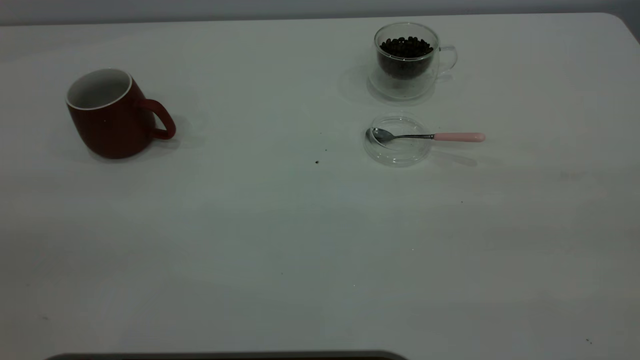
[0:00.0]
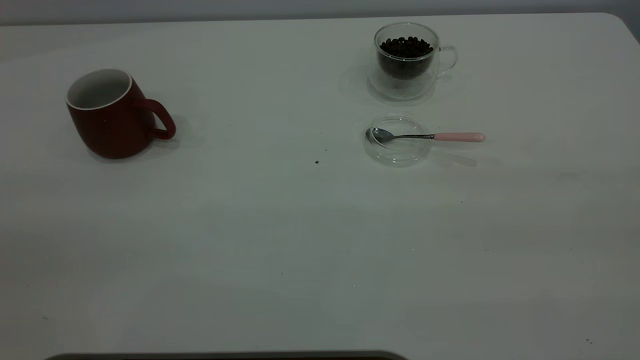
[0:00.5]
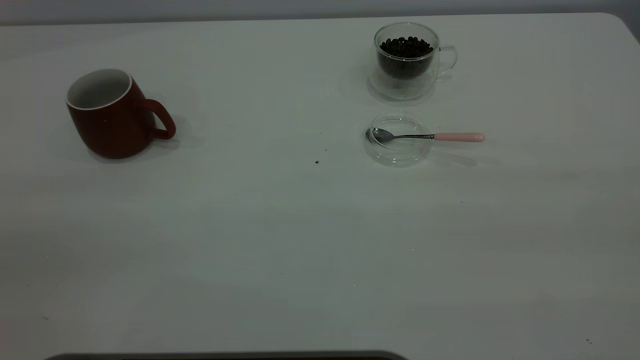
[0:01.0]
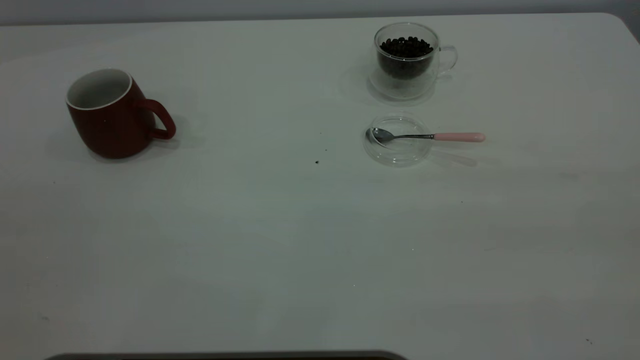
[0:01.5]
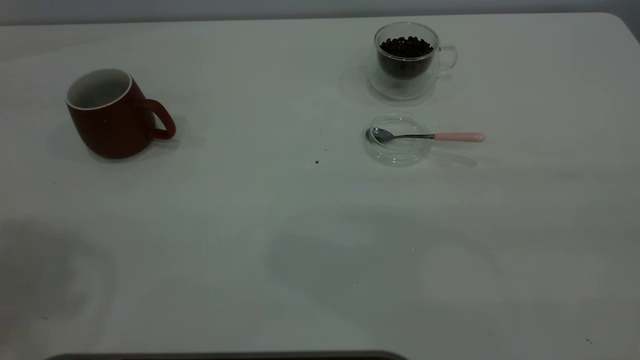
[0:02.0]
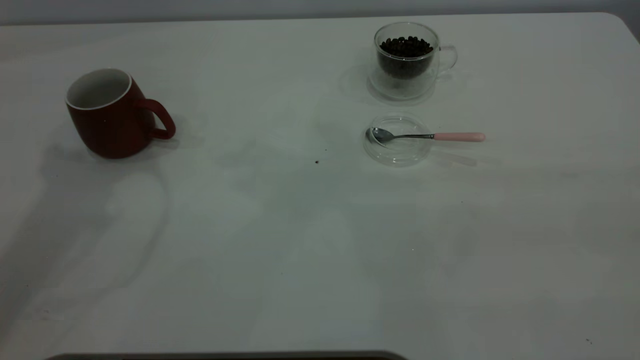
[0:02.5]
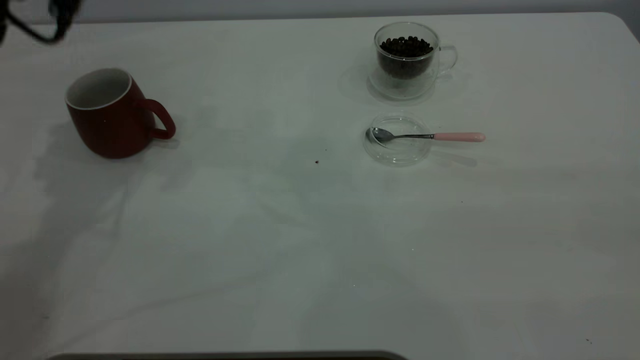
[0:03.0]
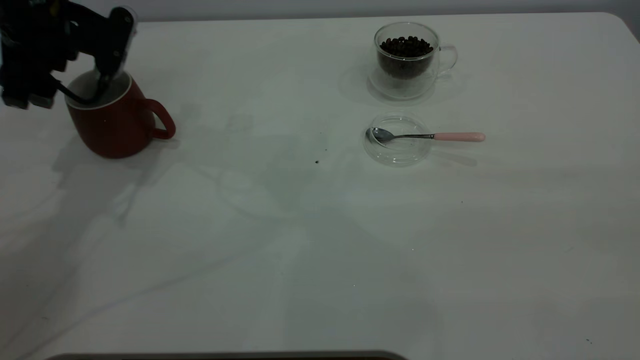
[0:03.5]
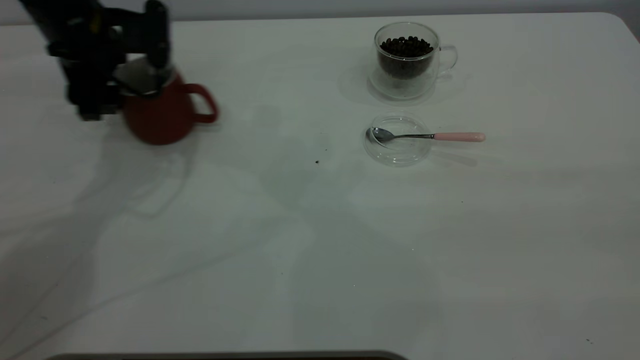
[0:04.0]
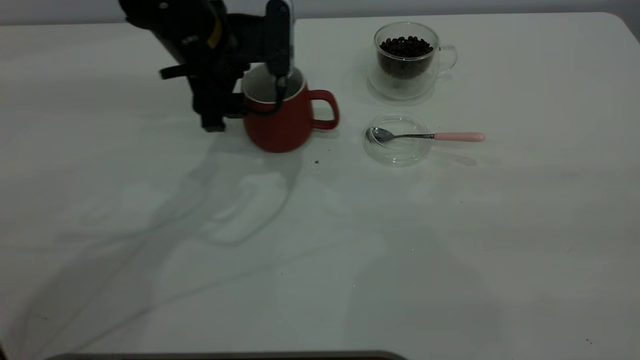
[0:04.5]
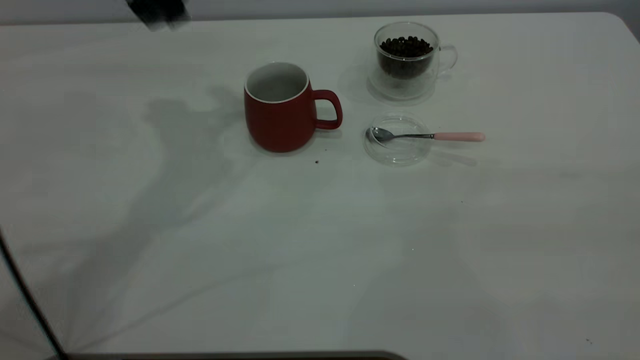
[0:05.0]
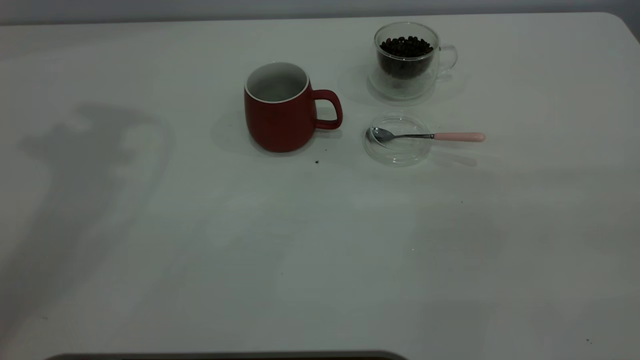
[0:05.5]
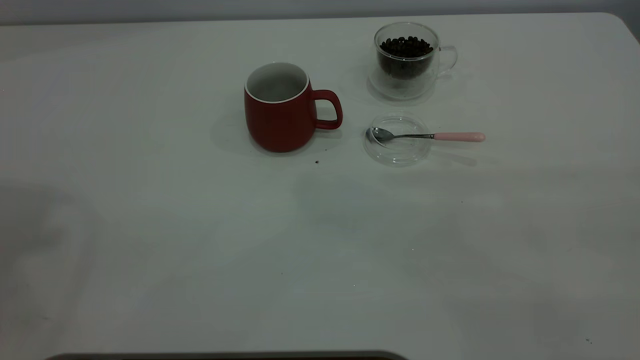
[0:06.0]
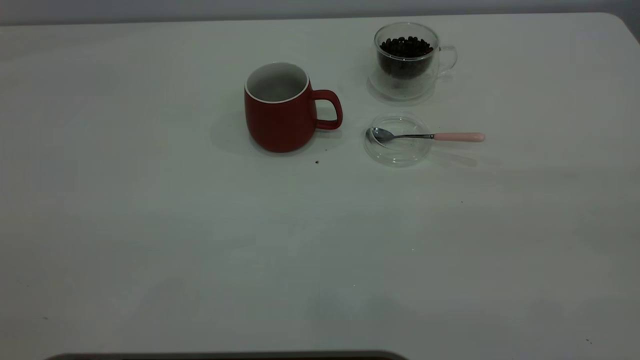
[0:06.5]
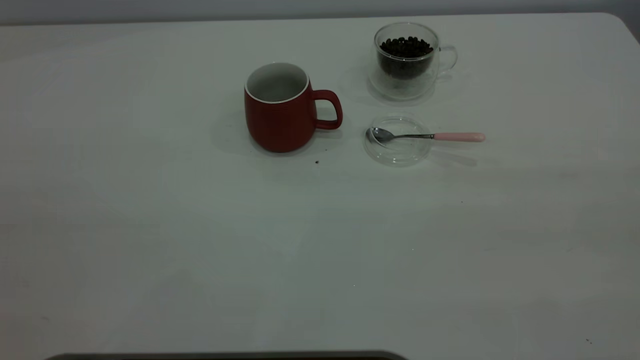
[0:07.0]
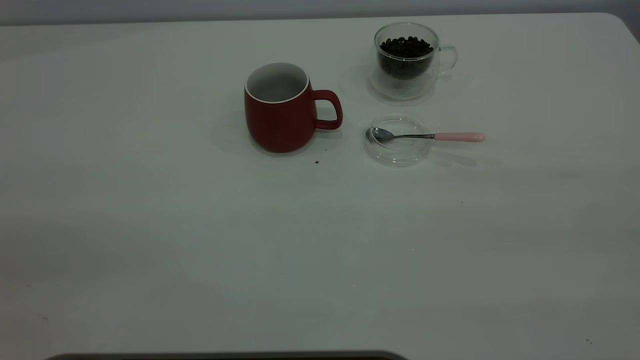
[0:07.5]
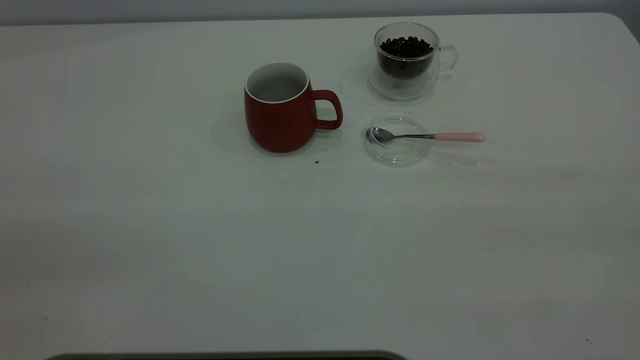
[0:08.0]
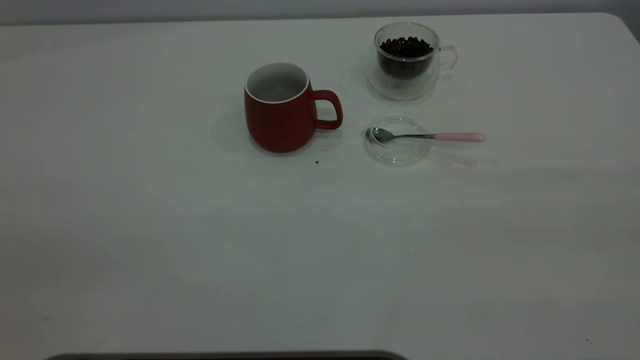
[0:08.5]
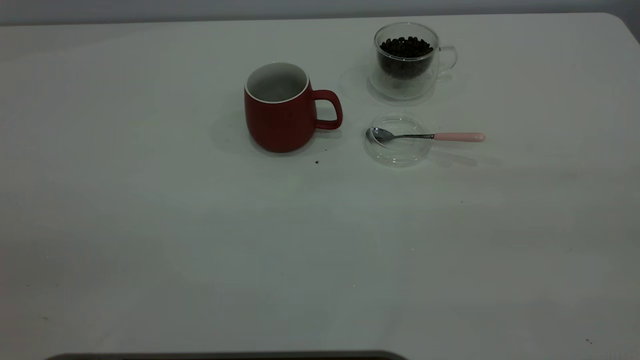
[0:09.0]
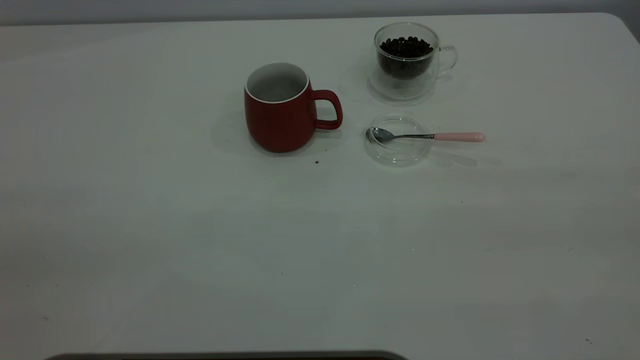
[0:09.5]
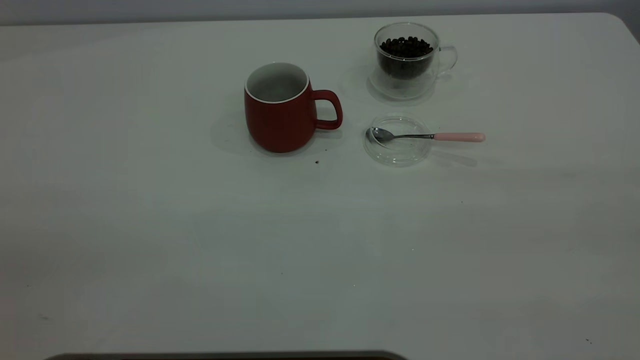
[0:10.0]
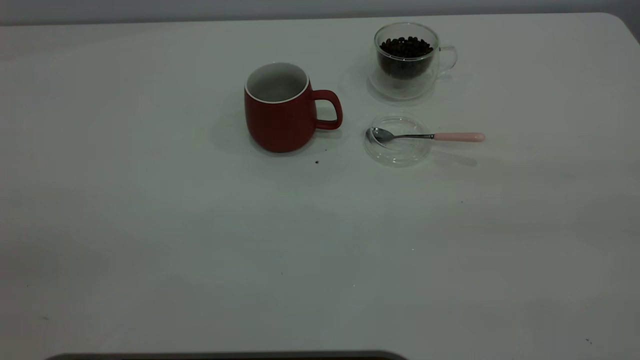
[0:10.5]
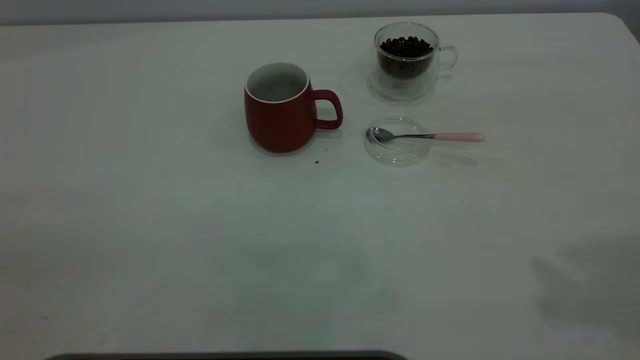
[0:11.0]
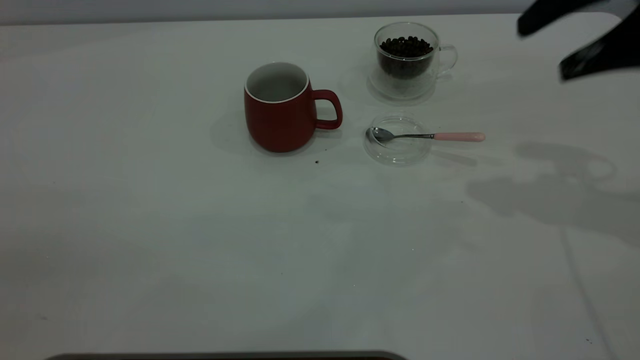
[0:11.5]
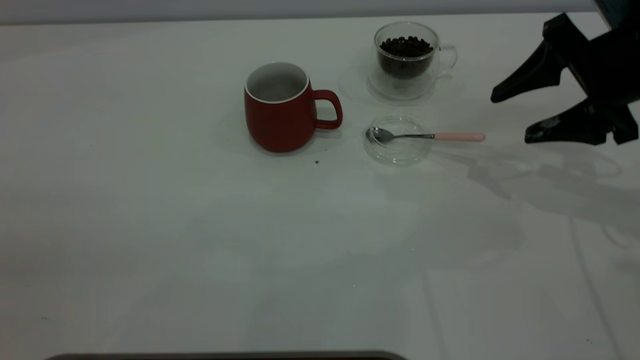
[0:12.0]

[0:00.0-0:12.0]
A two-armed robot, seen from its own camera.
Task of the whole recording: the left gripper place the red cup in the center of the table, the right gripper take the pink spoon from the cup lid and scoop out the coffee beans from the coffee cup and put them into the red cup, the right gripper put the spoon back into the cup lid.
Step, 0:00.0 to 0:04.5: Move the cup to the center of view.
0:02.0 to 0:04.0: The left gripper shifts some 40 cm downward and forward.
0:04.0 to 0:06.0: The left gripper goes roughly 50 cm upward and backward.
0:10.0 to 0:12.0: The right gripper goes some 40 cm forward and downward.

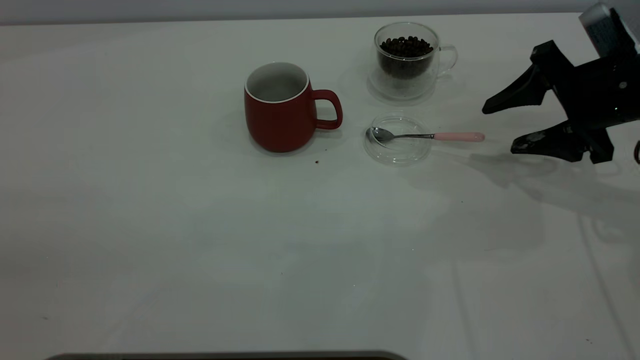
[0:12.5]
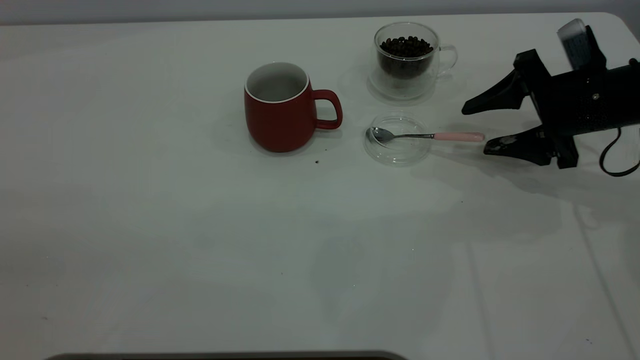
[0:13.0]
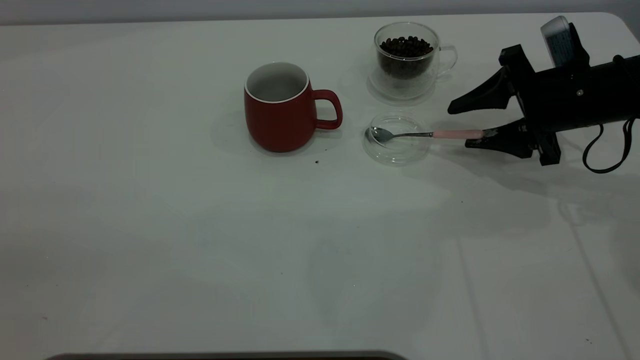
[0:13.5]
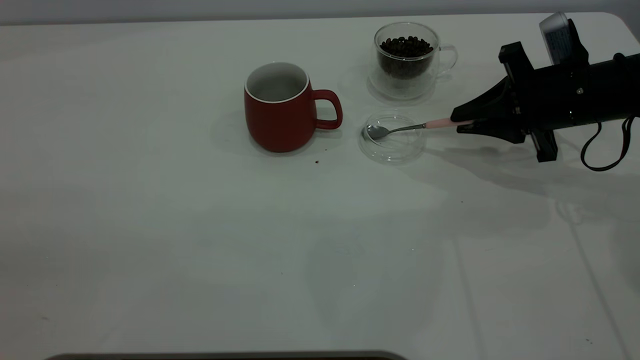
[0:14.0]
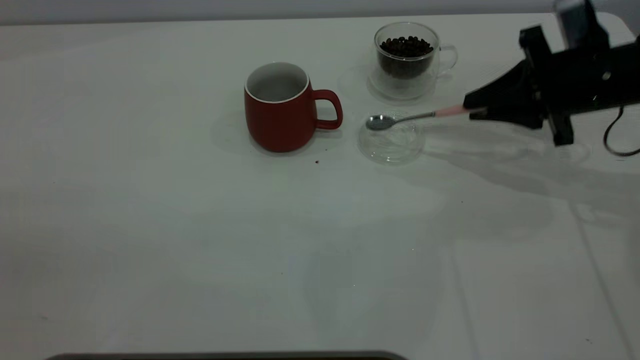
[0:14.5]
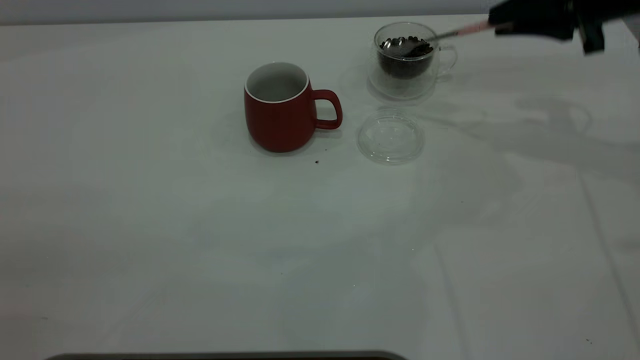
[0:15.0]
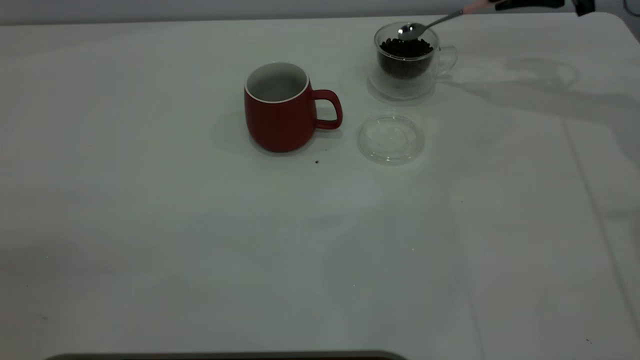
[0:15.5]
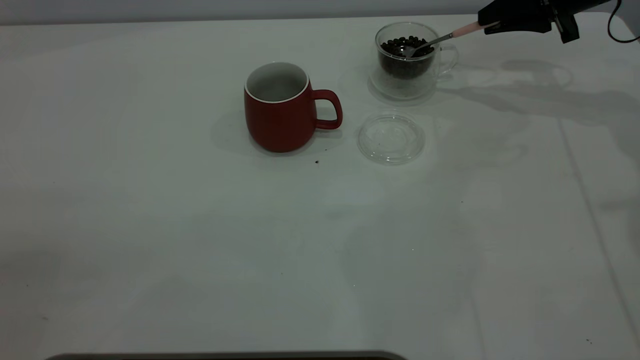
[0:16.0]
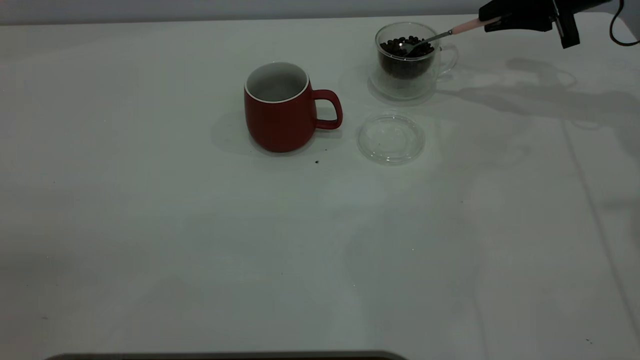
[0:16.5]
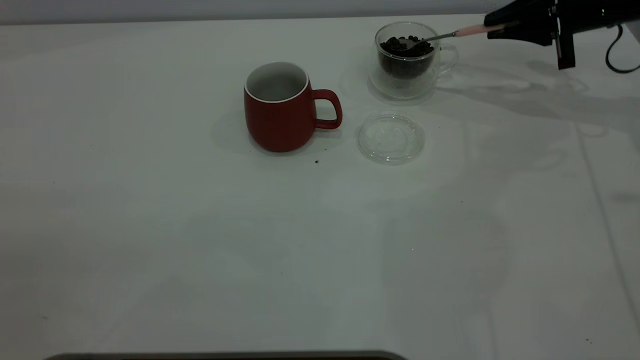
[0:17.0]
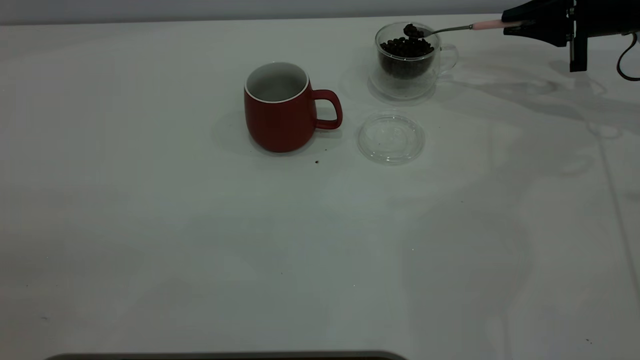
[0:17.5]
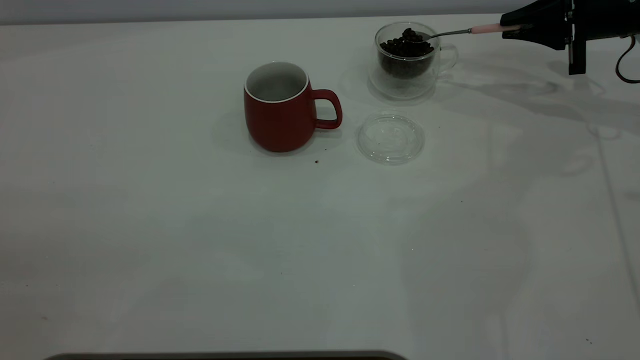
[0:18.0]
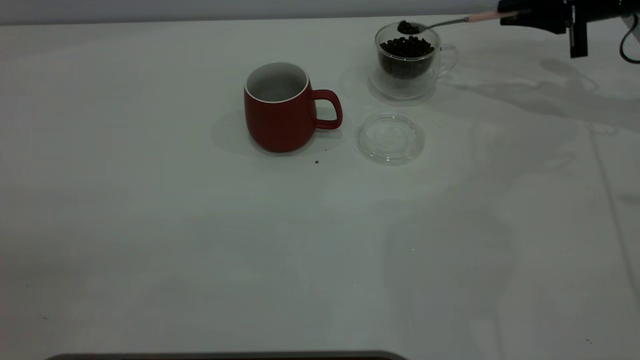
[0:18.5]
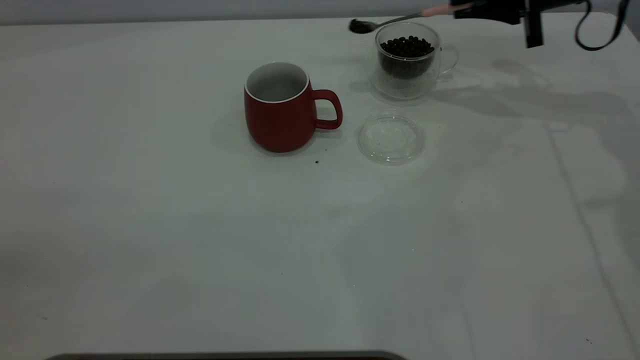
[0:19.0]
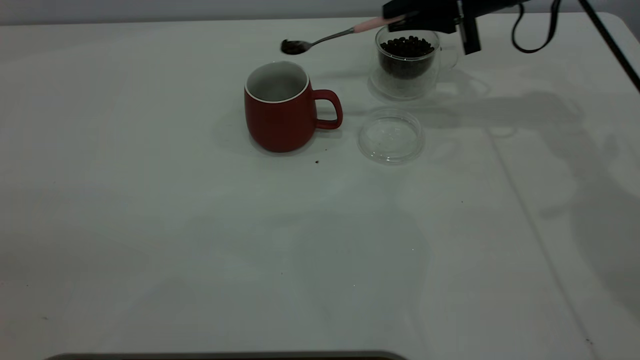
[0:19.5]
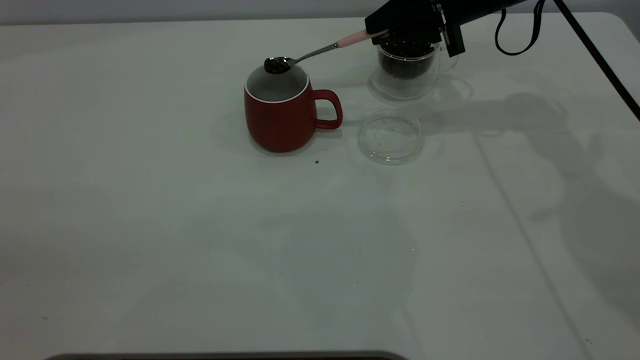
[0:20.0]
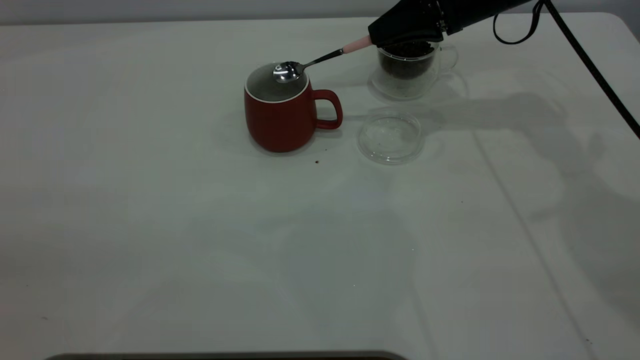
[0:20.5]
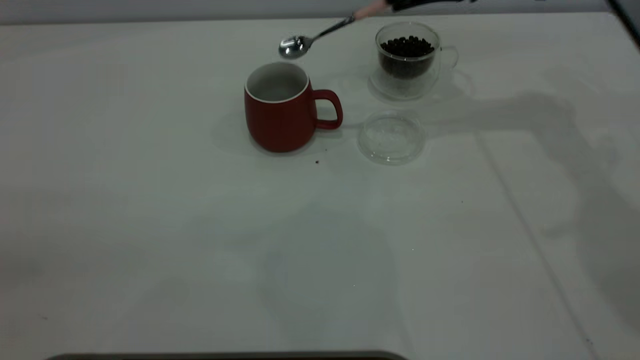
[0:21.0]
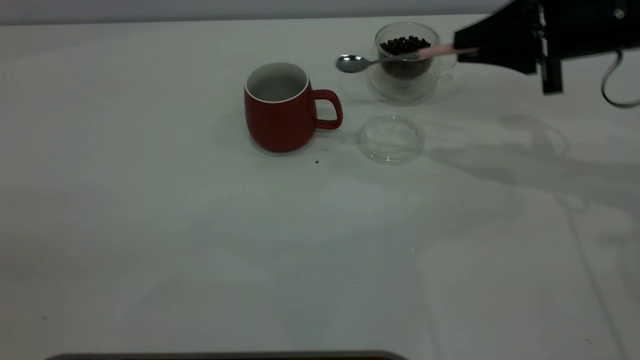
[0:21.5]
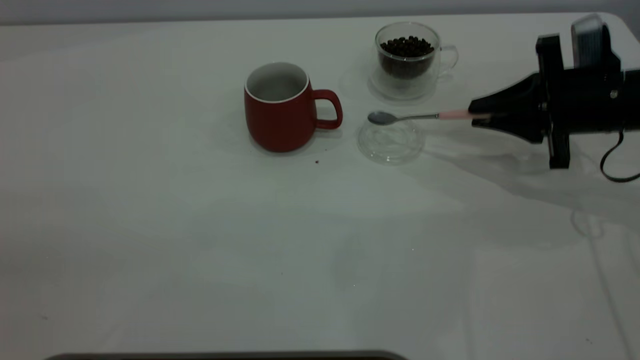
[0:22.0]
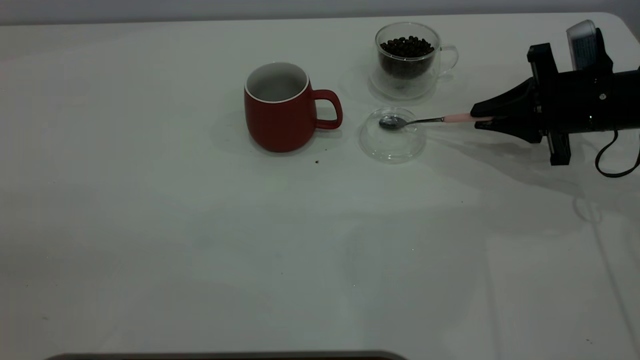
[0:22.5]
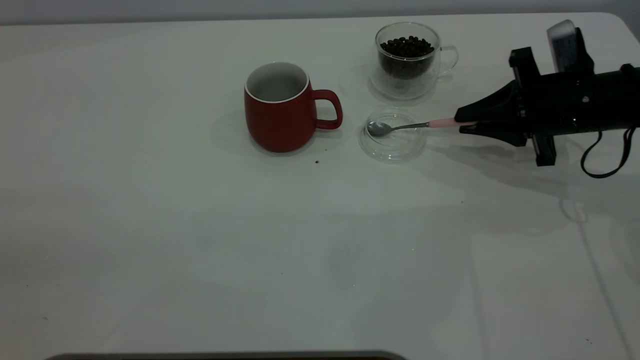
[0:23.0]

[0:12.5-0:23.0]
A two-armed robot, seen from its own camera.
Task of the whole recording: the left gripper place the red cup in the center of the table, the right gripper take the pink spoon from the cup lid and scoop out the coffee beans from the coffee cup and put them into the red cup, the right gripper put the spoon back into the cup lid.
Step, 0:12.5 to 0:14.5: Pick up the spoon.
Step, 0:15.0 to 0:20.5: Scoop a spoonful of beans into the cup.
0:12.5 to 0:14.5: The right gripper closes its fingers.
0:14.5 to 0:16.5: The right gripper shifts approximately 15 cm forward.
0:16.5 to 0:19.0: There are only small adjustments of the grippers.
0:19.0 to 0:21.0: The right gripper shifts about 10 cm to the left and upward.
0:21.0 to 0:23.0: The right gripper heads downward, backward and to the right, covering approximately 20 cm.
